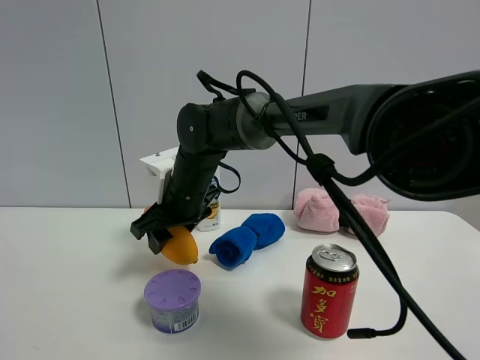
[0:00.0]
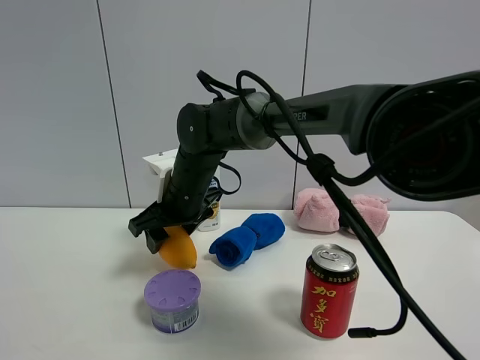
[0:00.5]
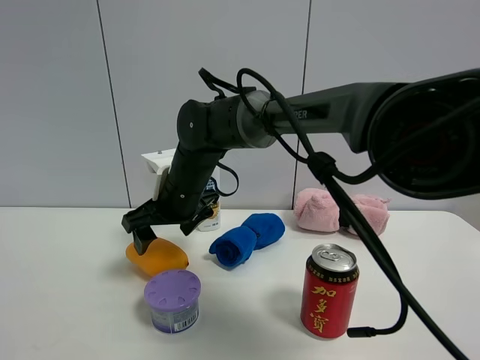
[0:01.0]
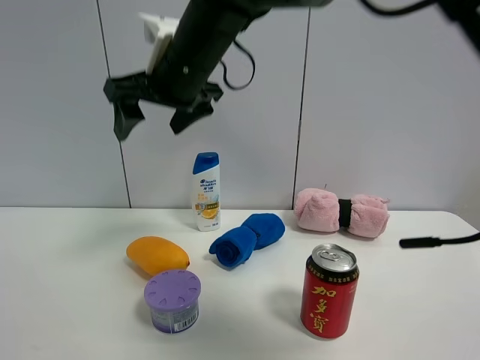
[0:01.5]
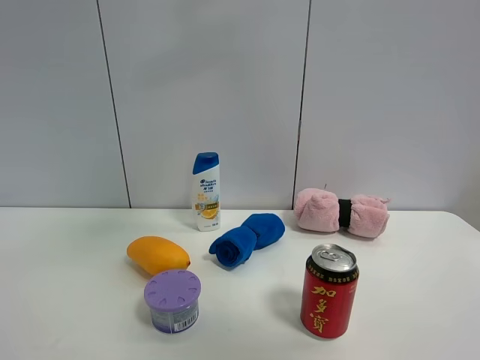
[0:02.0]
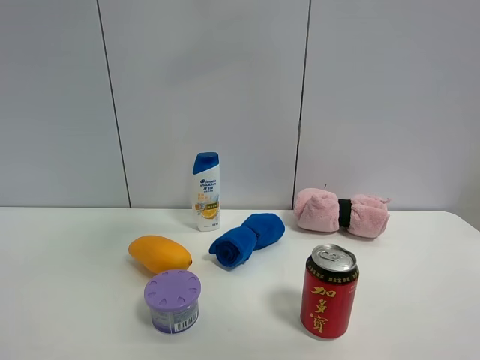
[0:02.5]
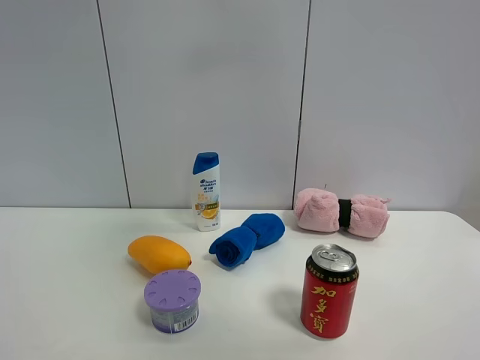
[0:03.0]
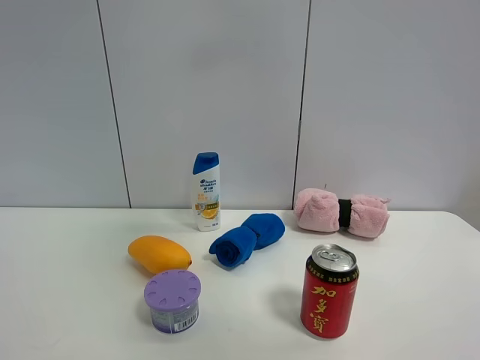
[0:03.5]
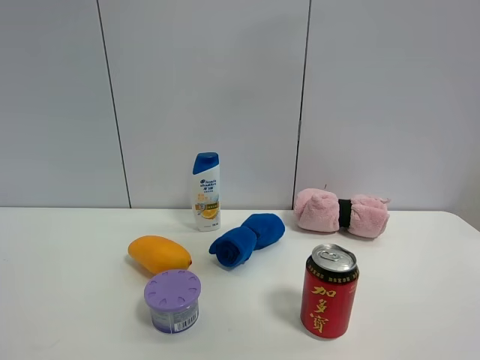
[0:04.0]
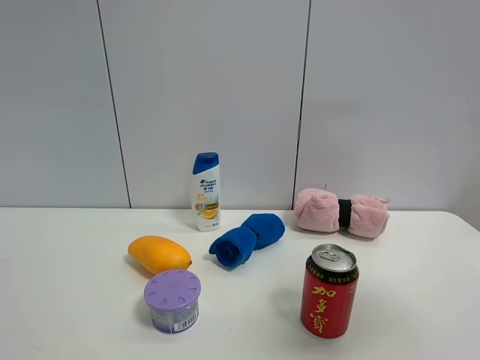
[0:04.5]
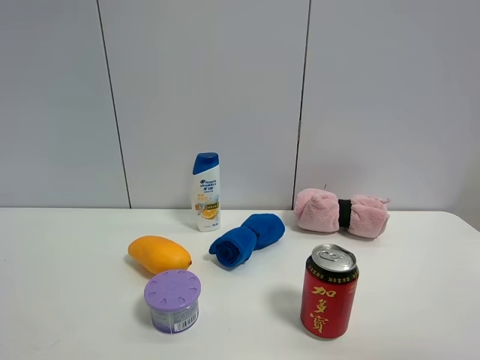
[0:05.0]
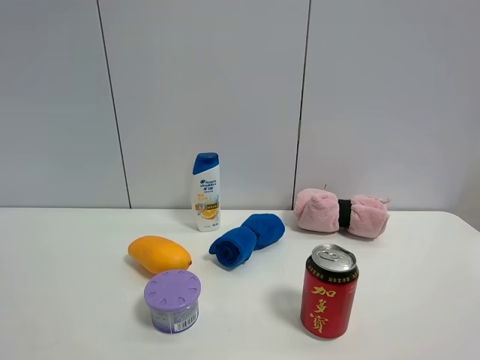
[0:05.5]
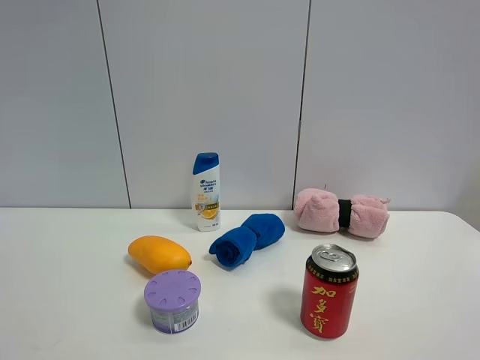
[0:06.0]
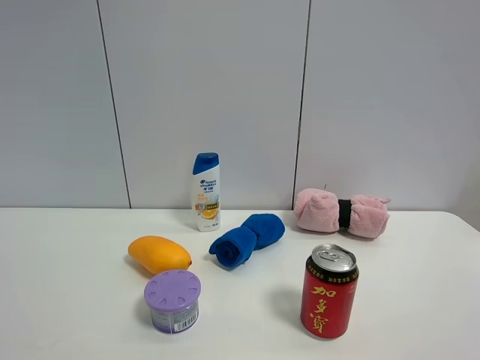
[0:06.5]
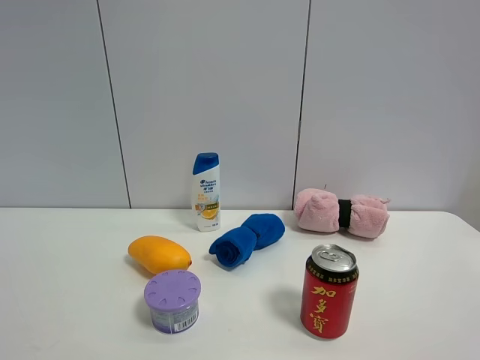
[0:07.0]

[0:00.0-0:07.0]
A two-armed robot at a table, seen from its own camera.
Task of the whole recording: the gripper move the object.
0:00.0 to 0:02.0: The right gripper moves upward, roughly 35 cm, and opens its fingers.
0:03.5 to 0:05.0: The right gripper goes roughly 35 cm backward, downward and to the right.

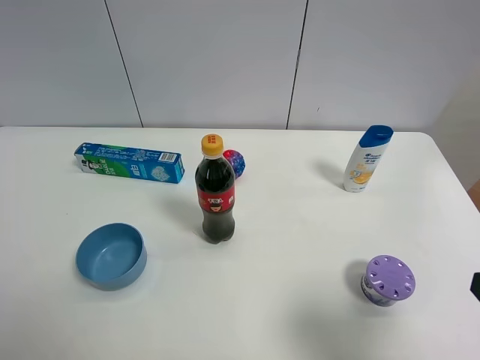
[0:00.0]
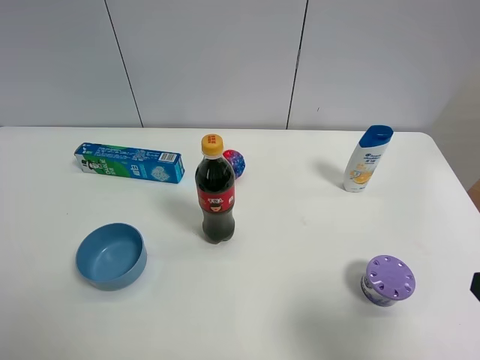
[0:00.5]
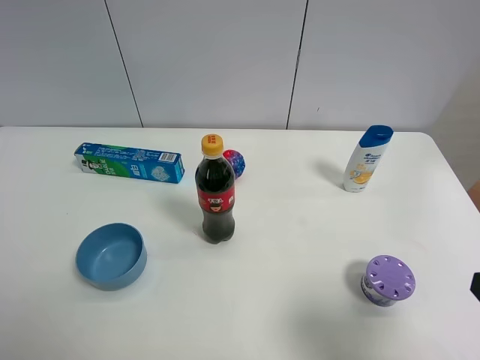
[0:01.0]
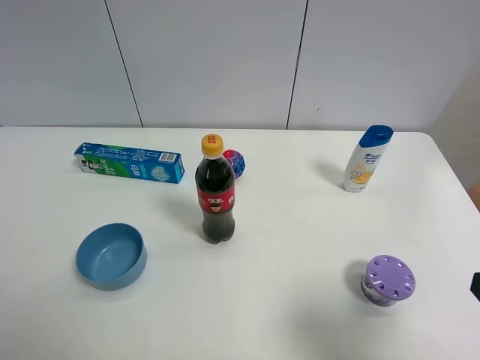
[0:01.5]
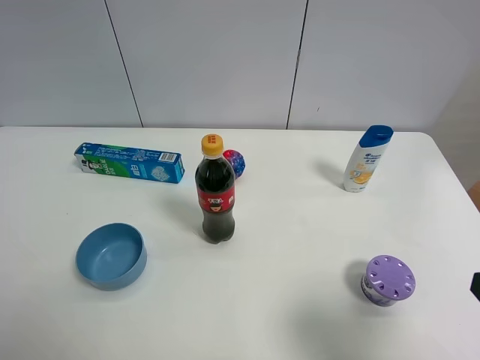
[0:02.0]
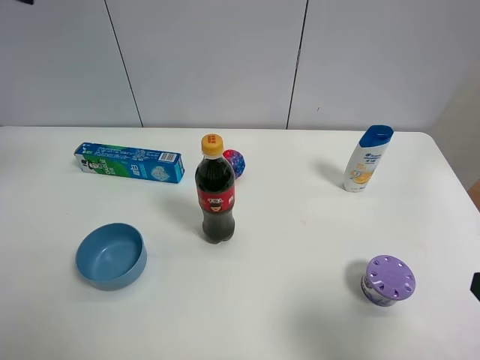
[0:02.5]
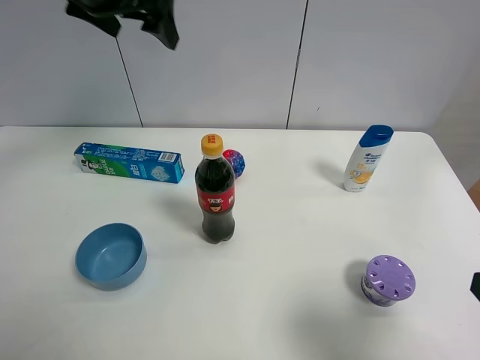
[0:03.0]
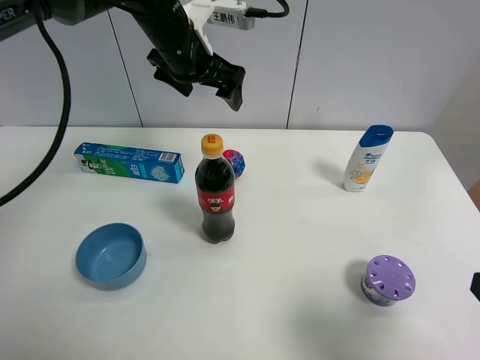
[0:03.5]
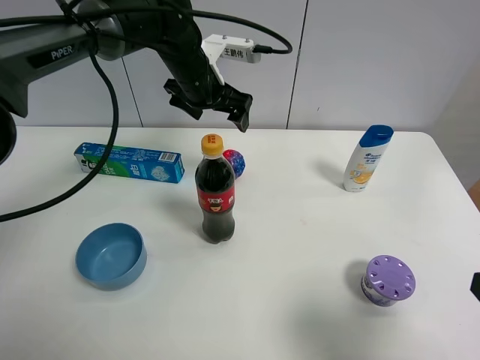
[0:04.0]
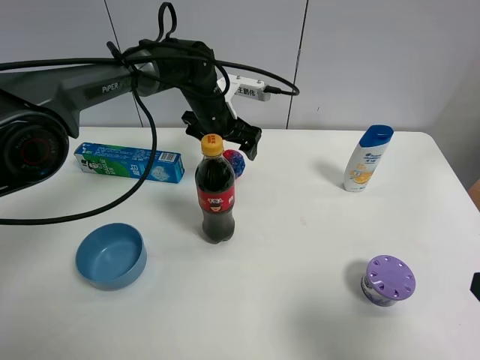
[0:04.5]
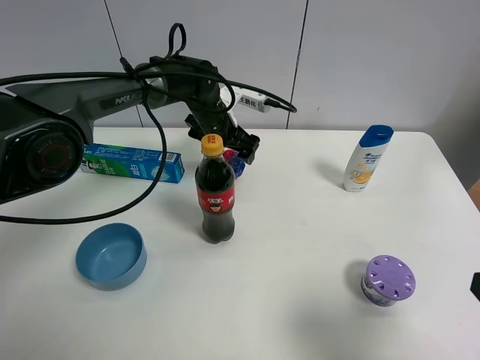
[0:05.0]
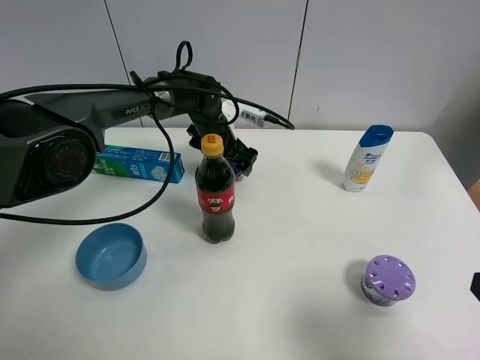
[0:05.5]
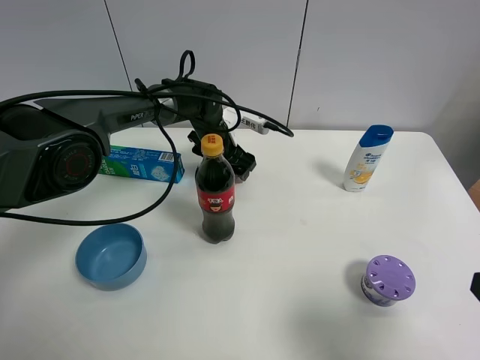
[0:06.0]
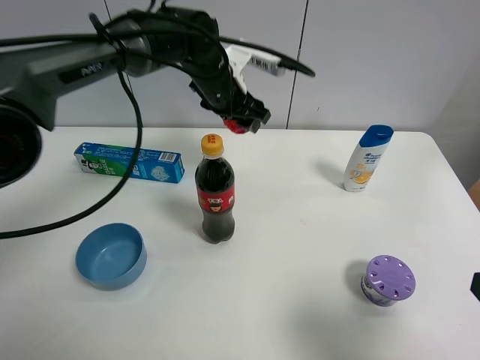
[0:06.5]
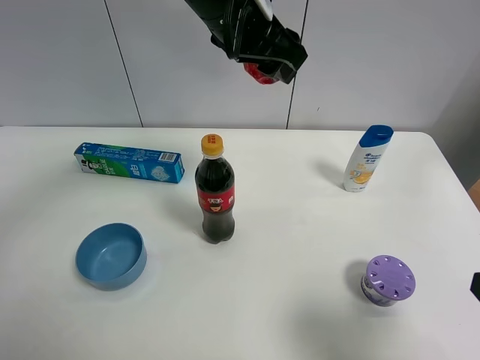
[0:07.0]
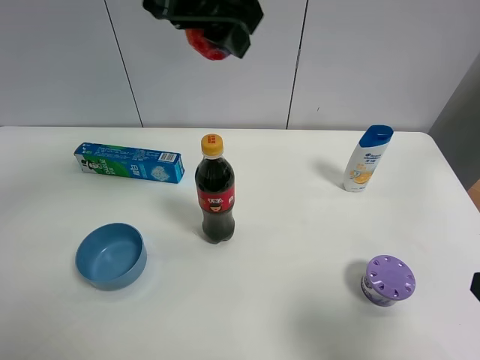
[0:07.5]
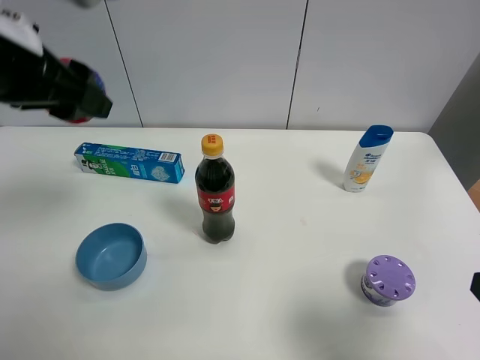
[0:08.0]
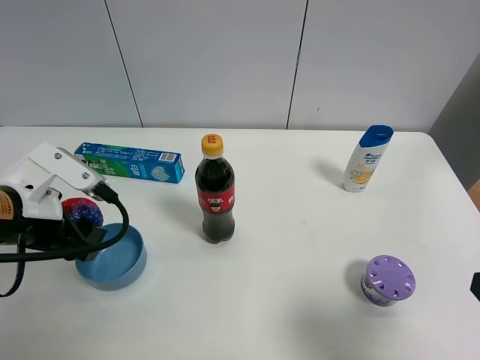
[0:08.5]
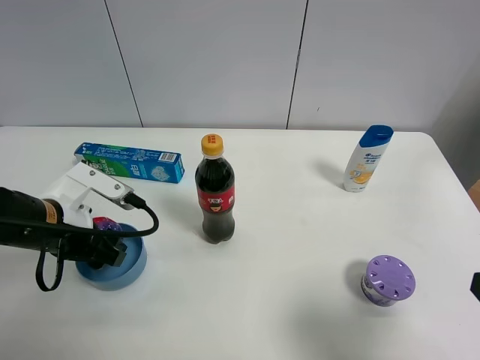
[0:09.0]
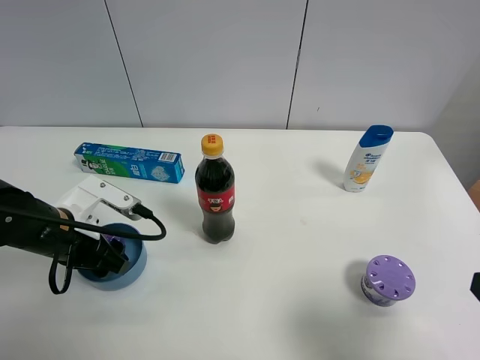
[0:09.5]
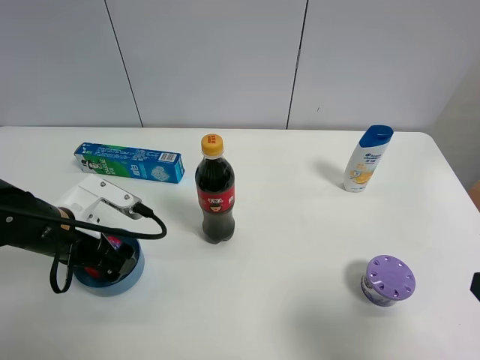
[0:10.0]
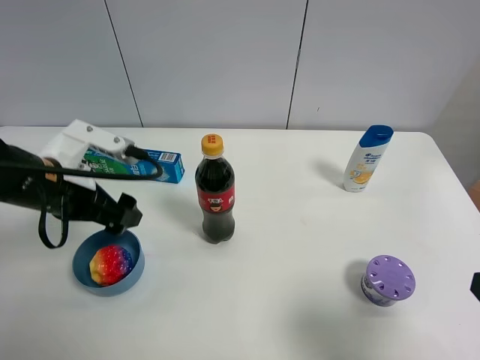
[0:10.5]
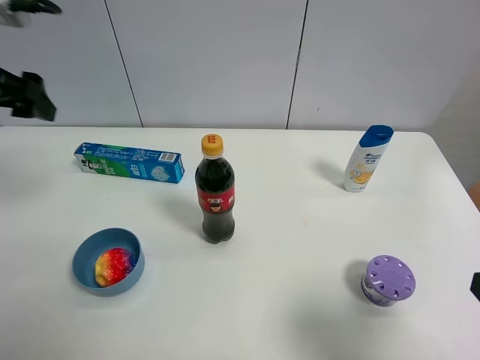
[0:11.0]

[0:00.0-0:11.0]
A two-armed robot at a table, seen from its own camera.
Task of the whole recording: the gripper move the object.
Step, 0:00.0 to 0:06.0: Grasp the colorful ball with the left gripper.
Step, 0:06.5 to 0:10.5: Place the colorful ball into the blue bowl with the left gripper.
0:02.0 to 0:03.5: The left gripper moves forward and to the right, about 40 cm.
0:03.5 to 0:05.5: The left gripper heads downward, covering about 20 cm.
0:05.5 to 0:07.5: The left gripper travels upward and backward by about 35 cm, and closes up.
0:07.5 to 0:09.0: The left gripper heads downward and to the left, covering about 30 cm.
0:09.0 to 0:11.0: The left gripper moves upward and to the left, approximately 20 cm, and opens up.

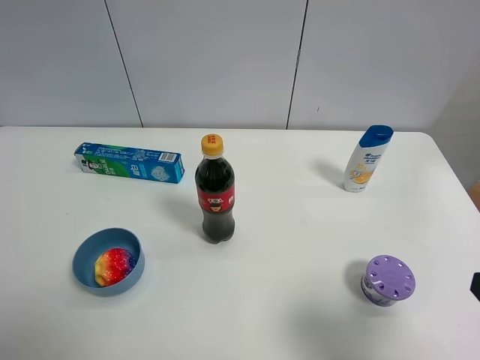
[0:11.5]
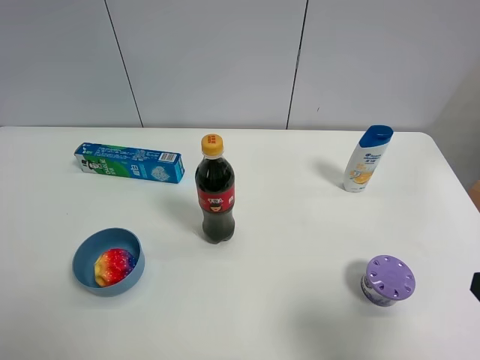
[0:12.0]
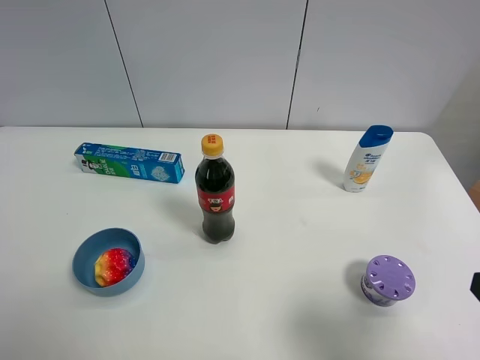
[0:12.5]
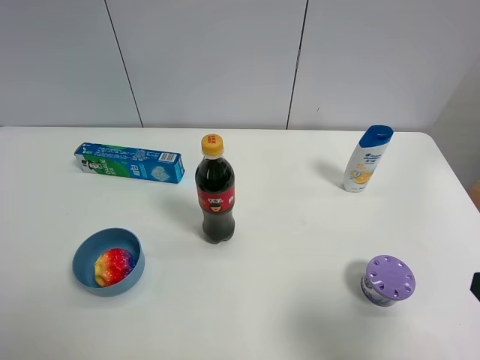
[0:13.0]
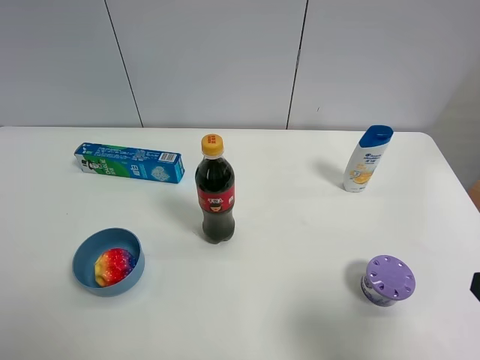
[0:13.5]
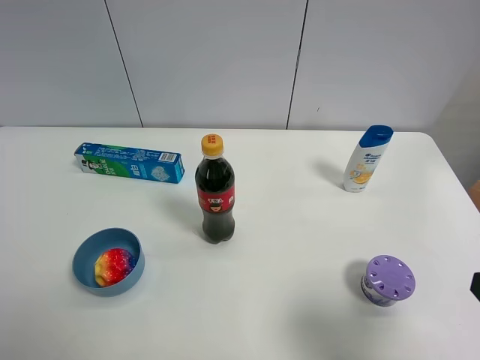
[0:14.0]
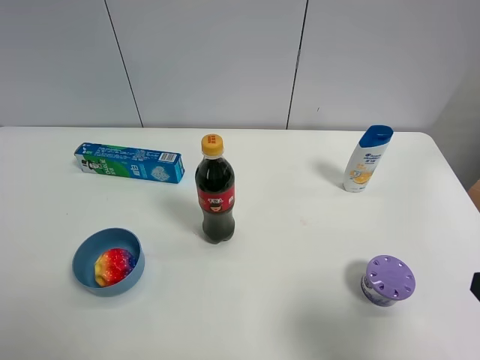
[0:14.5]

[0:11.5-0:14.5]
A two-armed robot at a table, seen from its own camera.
Task of the whole recording: the gripper move the object.
0:13.0 to 0:14.5: The two grippers keep their place.
